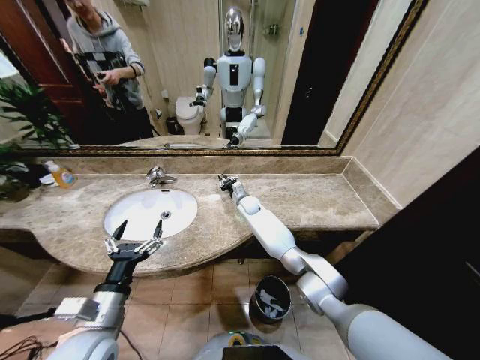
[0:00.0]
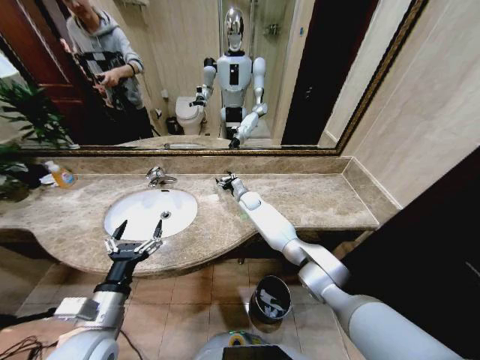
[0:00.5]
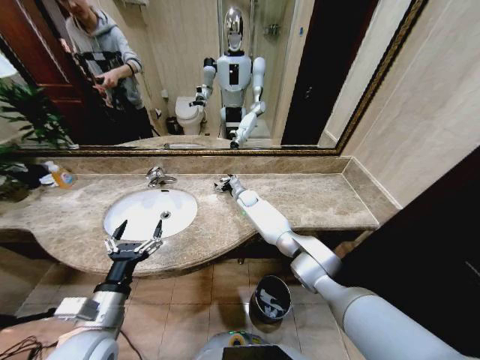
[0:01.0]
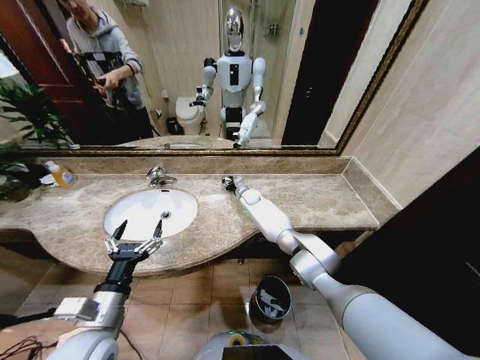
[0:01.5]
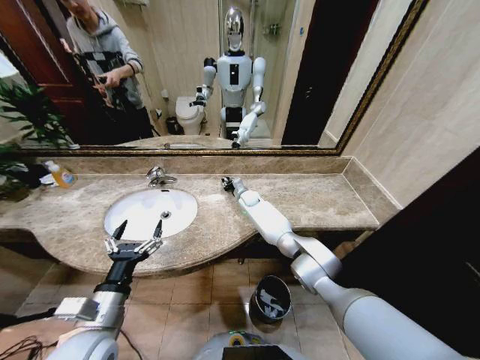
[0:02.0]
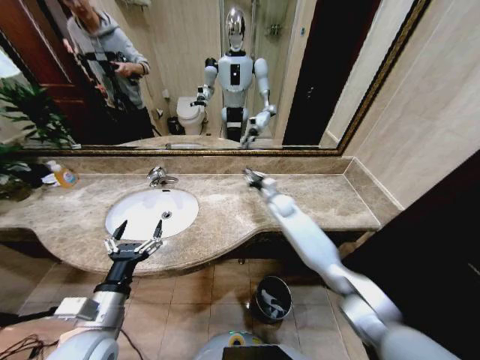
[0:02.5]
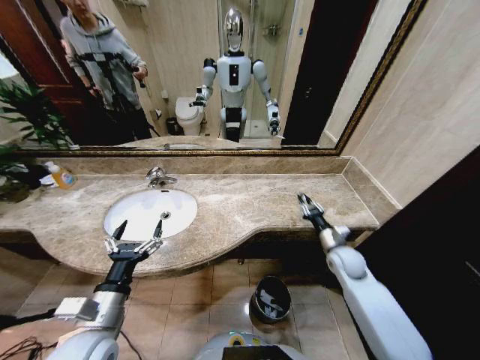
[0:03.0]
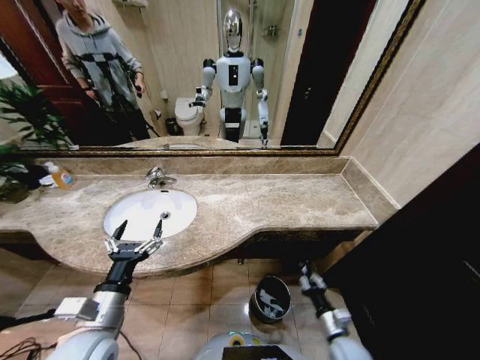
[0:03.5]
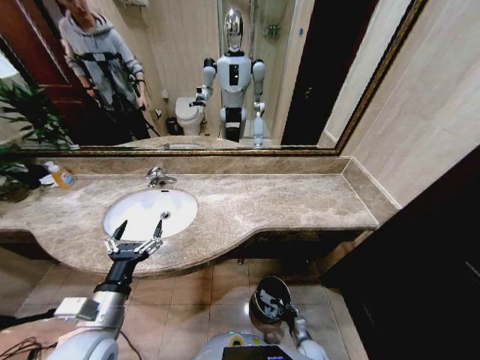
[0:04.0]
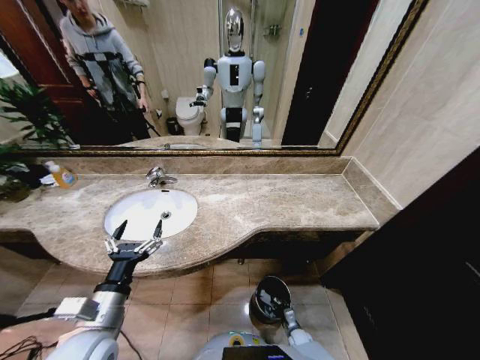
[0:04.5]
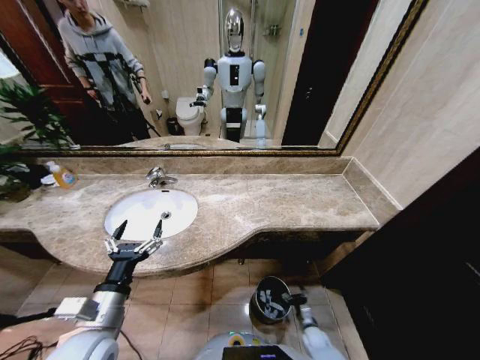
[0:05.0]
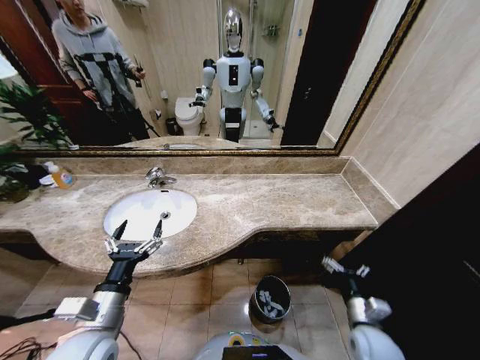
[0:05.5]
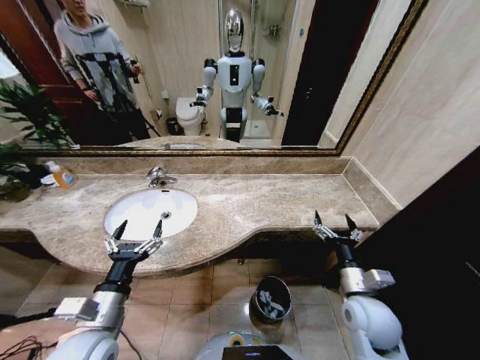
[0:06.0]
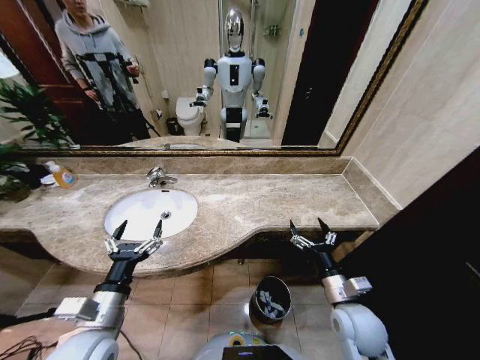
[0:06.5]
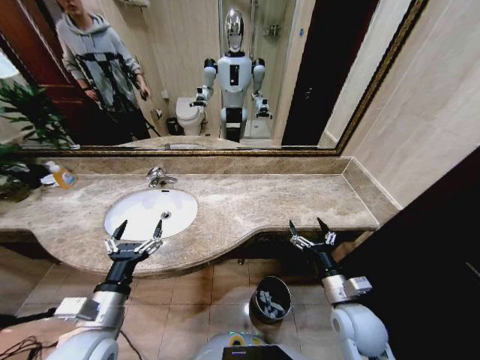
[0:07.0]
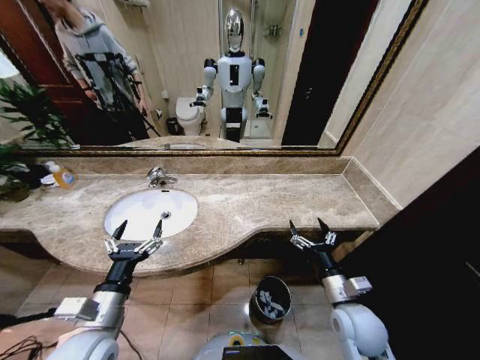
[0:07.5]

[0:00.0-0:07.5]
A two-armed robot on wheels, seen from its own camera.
Task of the whole recording: Pick up the trash from the sink and place it in the trash bin.
0:00.0 to 0:02.0: The right gripper opens and closes again.
0:02.0 to 0:04.0: The right gripper is displaced backward, downward and to the right by about 60 cm.
0:04.0 to 0:05.5: The right gripper heads upward, covering some 30 cm, and opens.
0:05.5 to 0:07.5: The right gripper moves upward and to the left, some 10 cm.

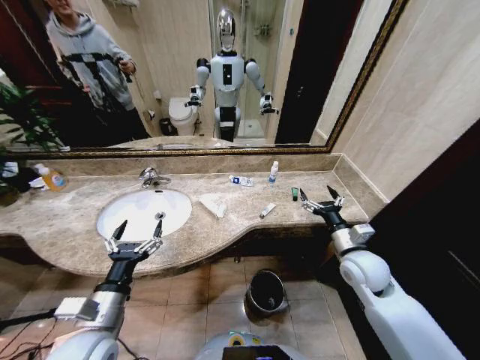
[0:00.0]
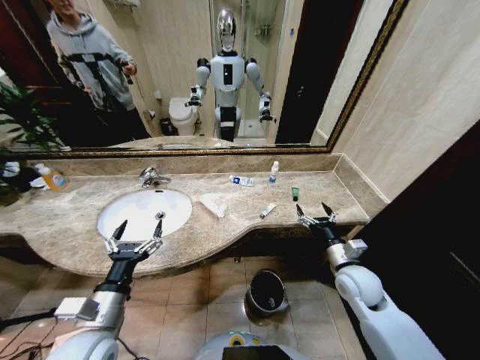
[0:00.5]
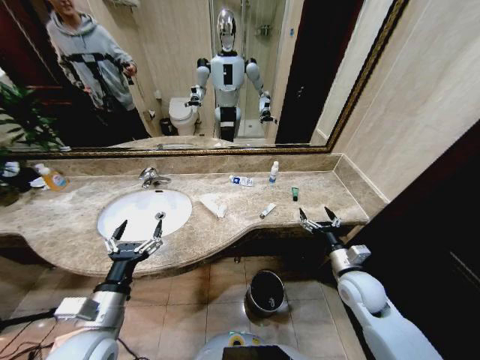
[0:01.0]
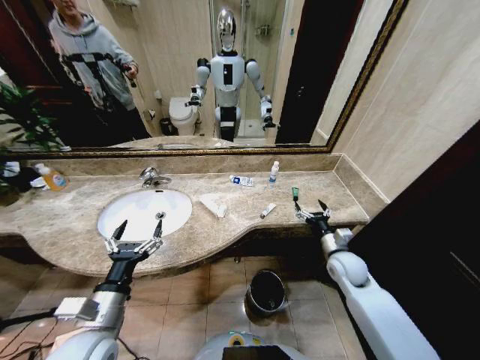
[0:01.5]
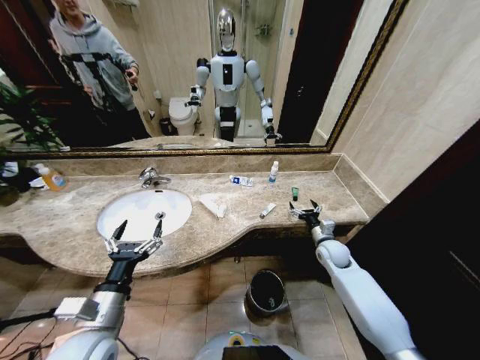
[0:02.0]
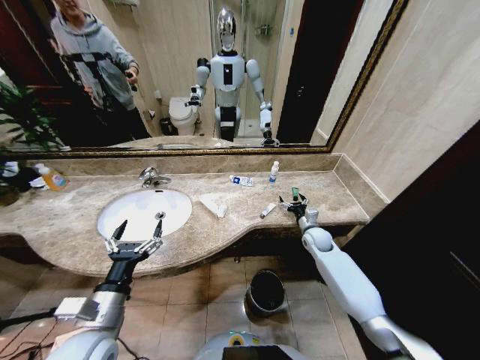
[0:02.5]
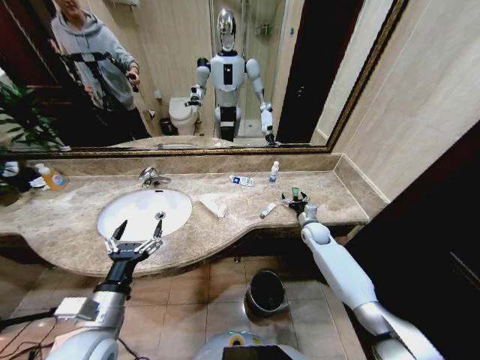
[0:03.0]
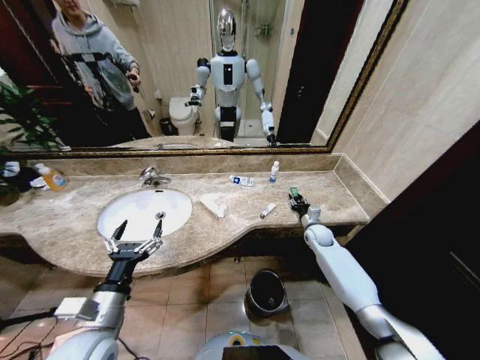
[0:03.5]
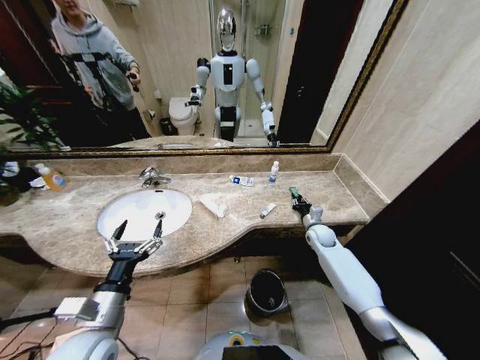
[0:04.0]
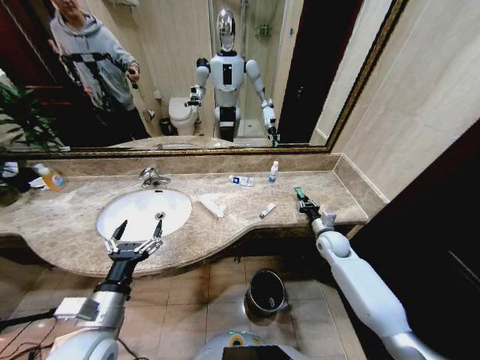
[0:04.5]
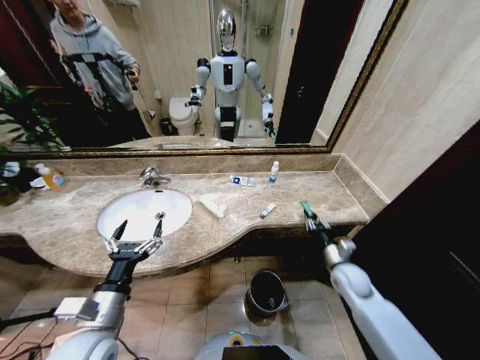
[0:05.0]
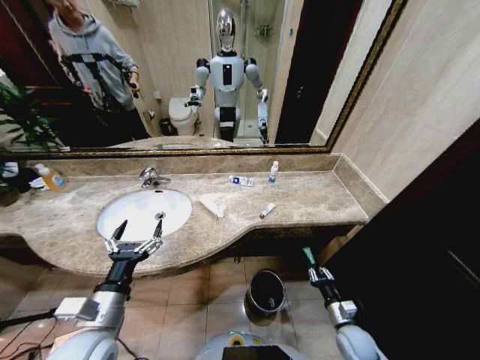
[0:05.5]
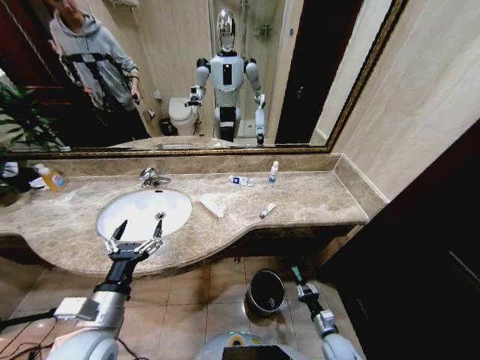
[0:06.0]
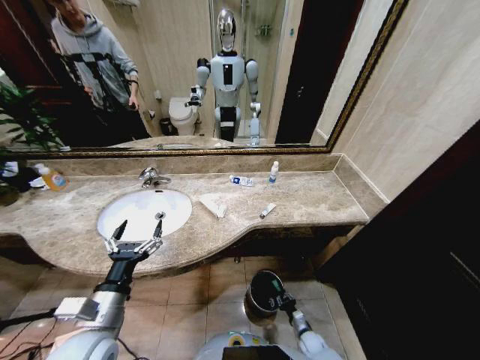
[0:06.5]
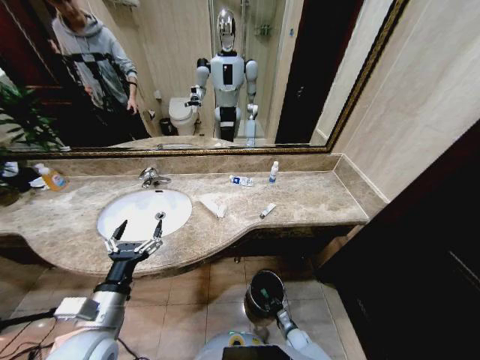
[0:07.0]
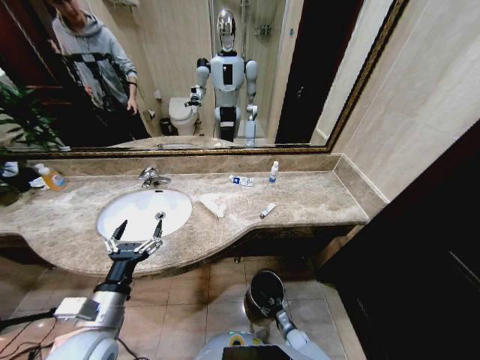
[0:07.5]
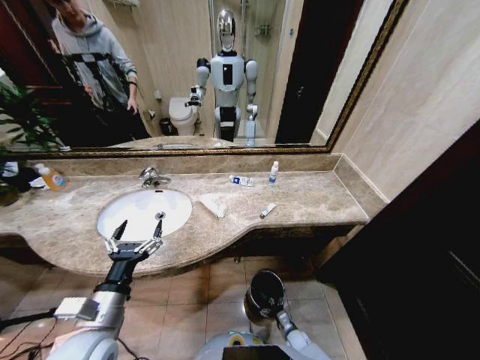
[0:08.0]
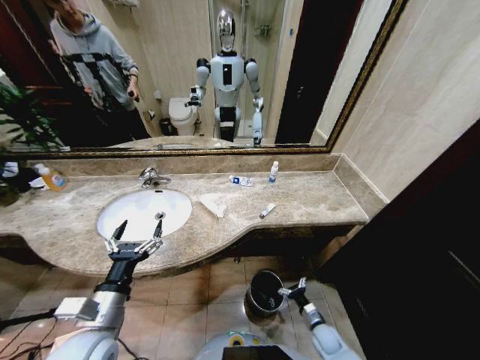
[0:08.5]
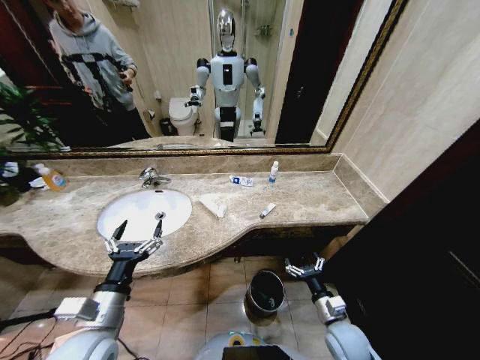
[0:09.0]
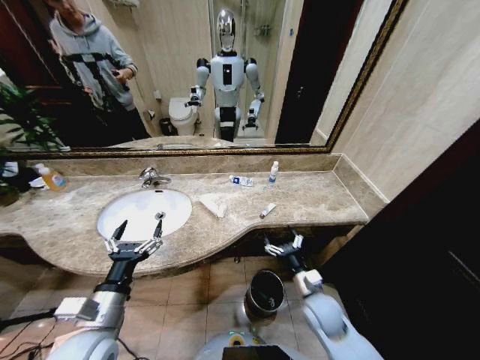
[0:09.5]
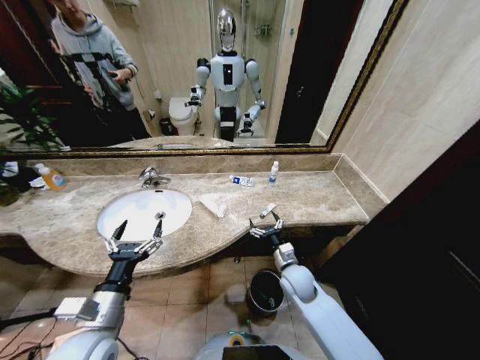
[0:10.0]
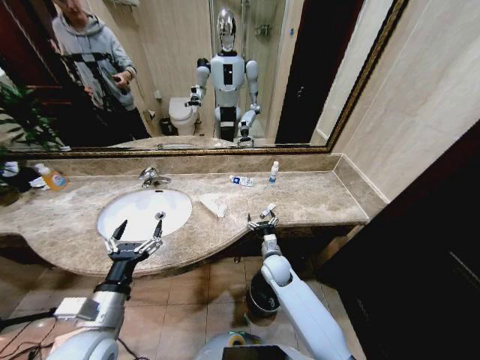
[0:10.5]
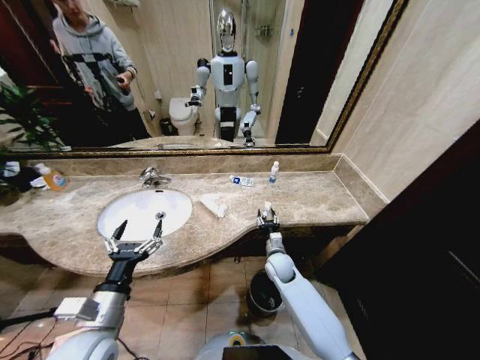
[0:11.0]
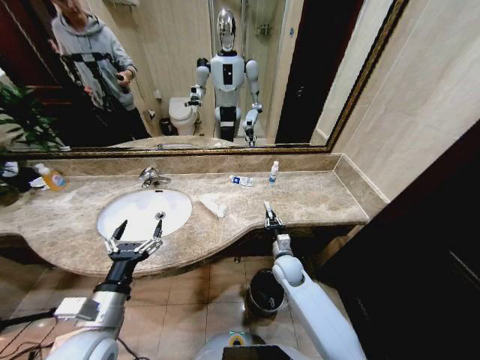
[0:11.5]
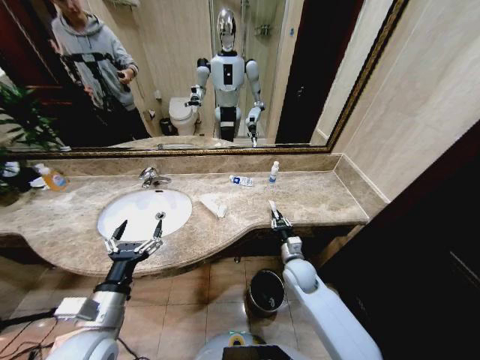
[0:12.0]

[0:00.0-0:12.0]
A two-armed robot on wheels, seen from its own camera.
Task of the whole recording: Pick up the trash from the sink and place it in the trash bin.
0:02.0 to 0:04.0: The right gripper shifts approximately 5 cm forward, and closes.
0:04.0 to 0:06.0: The right gripper goes roughly 40 cm backward and downward.
0:06.0 to 0:08.0: The right gripper moves downward and to the left, roughly 15 cm, and opens.
0:08.0 to 0:10.0: The right gripper travels upward by about 35 cm.
0:10.0 to 0:12.0: The right gripper closes its fingers.

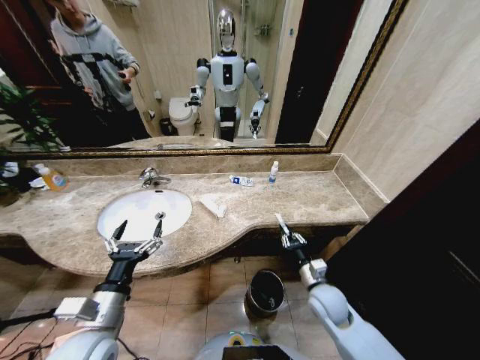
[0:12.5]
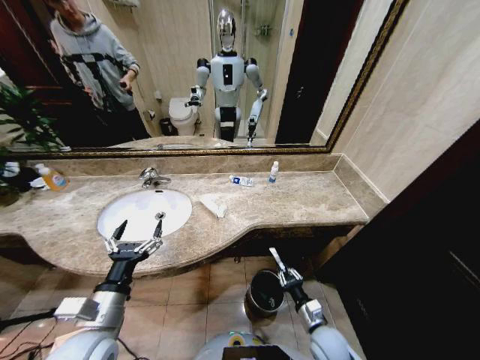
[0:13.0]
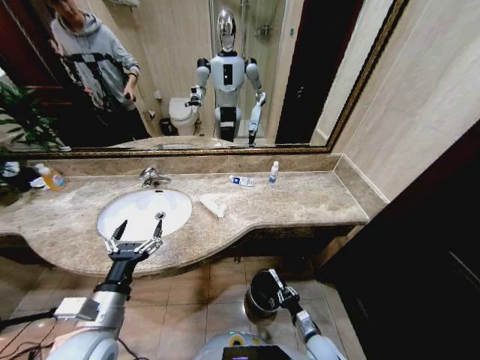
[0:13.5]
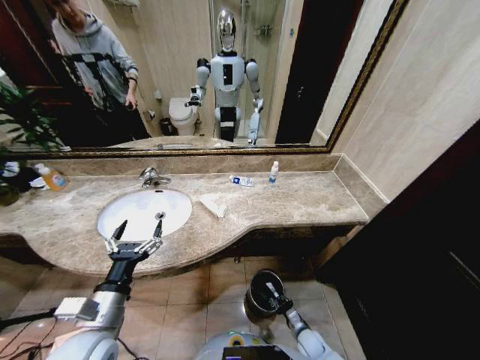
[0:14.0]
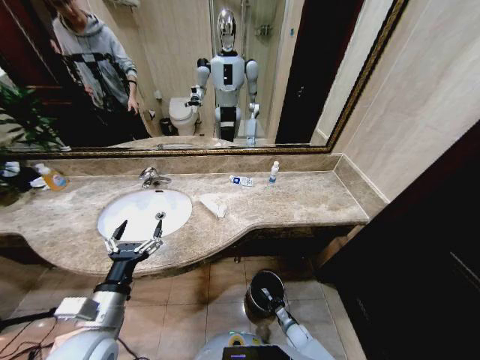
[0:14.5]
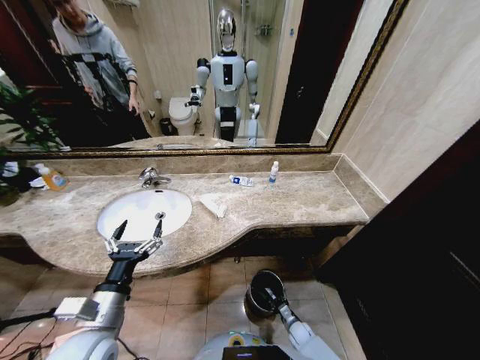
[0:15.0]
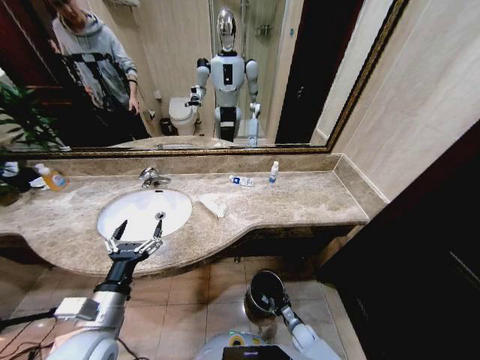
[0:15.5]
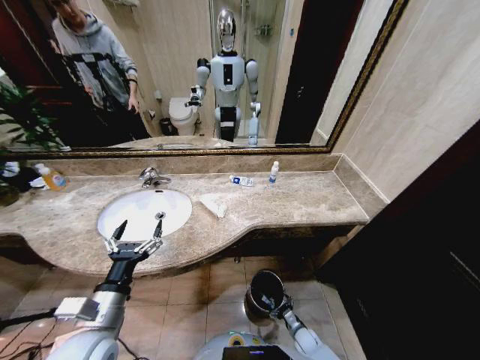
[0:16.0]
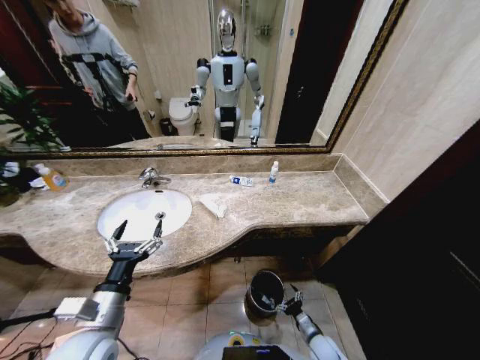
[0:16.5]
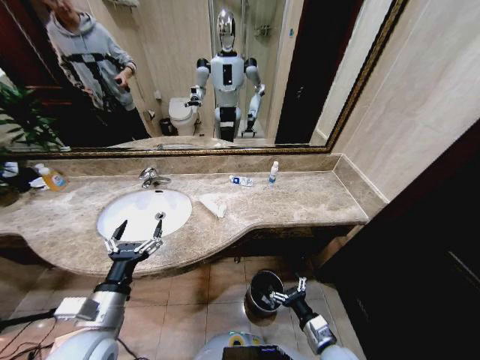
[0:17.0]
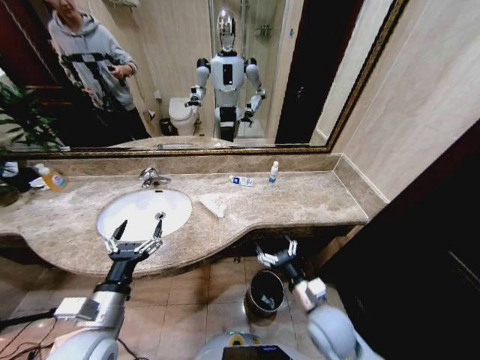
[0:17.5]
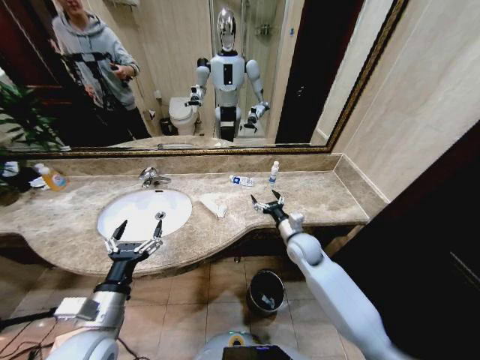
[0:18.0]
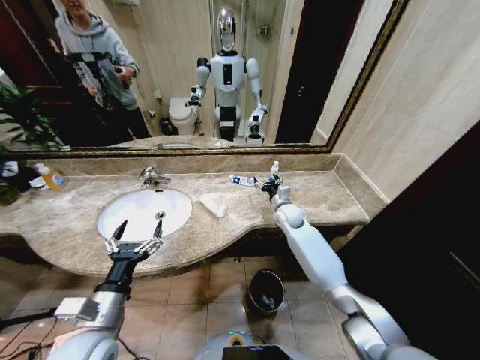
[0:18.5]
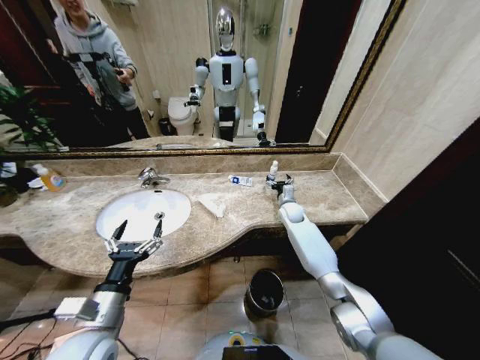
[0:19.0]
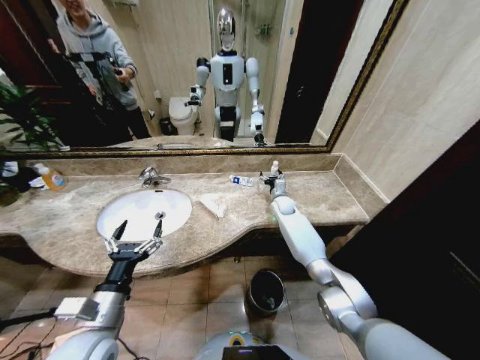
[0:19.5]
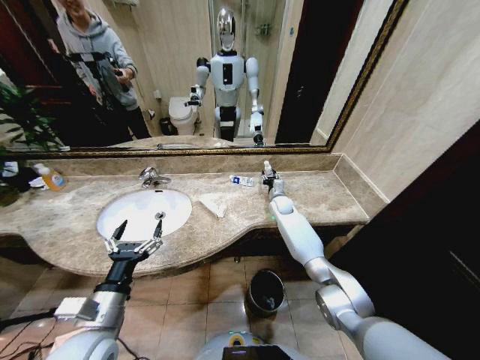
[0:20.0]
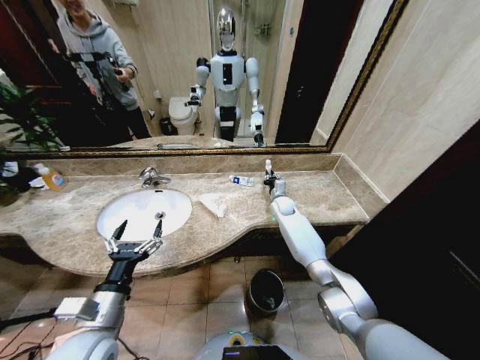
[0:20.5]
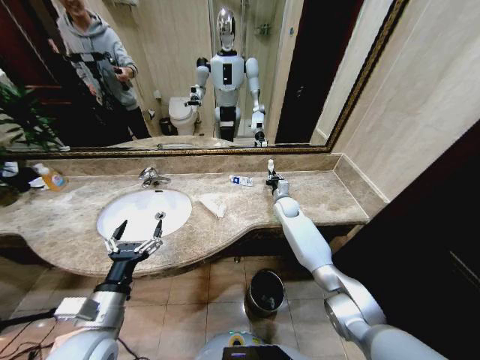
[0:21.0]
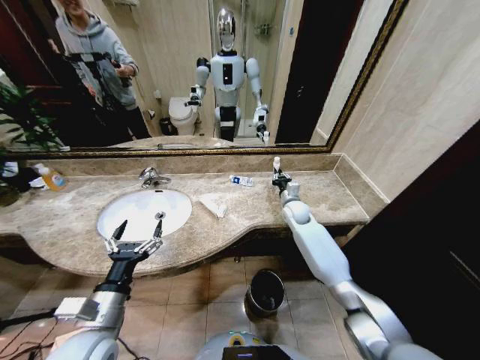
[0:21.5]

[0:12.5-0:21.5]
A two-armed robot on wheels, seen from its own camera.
Task of the whole recording: Pick up the trash from the sink and place it in the trash bin.
0:12.5 to 0:14.5: The right gripper goes about 30 cm downward.
0:14.5 to 0:17.0: The right gripper shifts roughly 25 cm upward, and opens its fingers.
0:17.0 to 0:19.5: The right gripper is displaced forward by approximately 50 cm.
0:19.5 to 0:21.5: The right gripper goes some 5 cm backward, and closes.